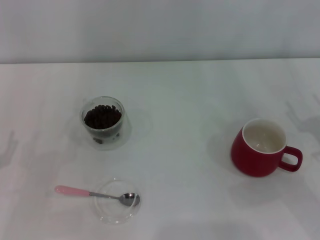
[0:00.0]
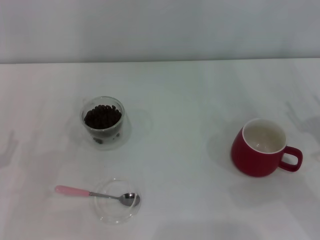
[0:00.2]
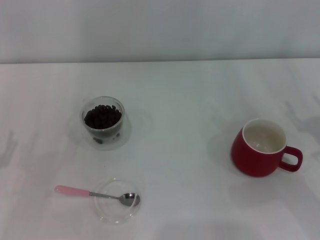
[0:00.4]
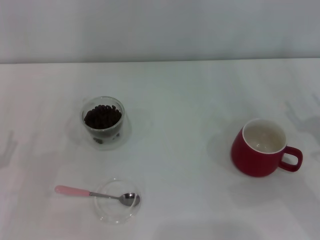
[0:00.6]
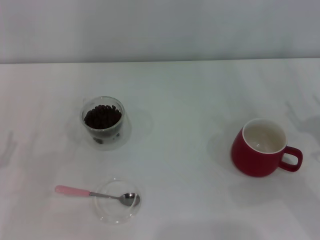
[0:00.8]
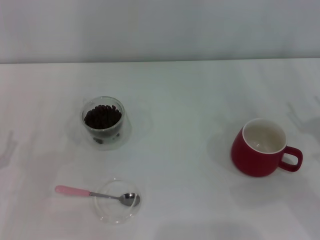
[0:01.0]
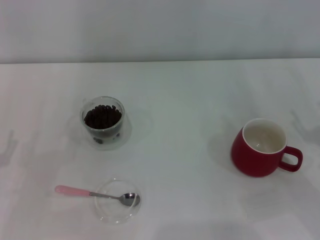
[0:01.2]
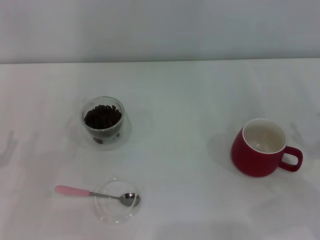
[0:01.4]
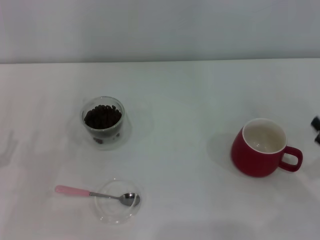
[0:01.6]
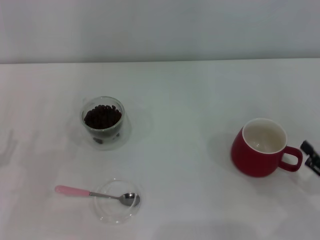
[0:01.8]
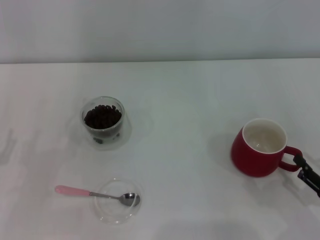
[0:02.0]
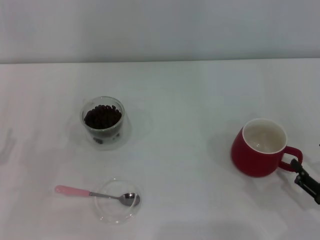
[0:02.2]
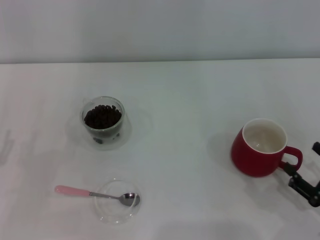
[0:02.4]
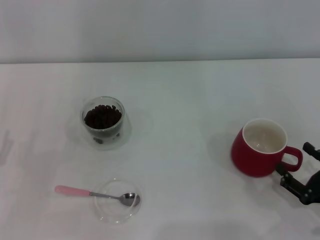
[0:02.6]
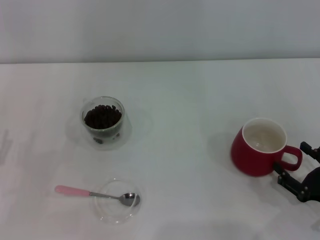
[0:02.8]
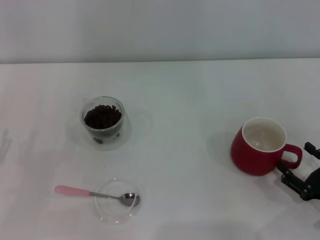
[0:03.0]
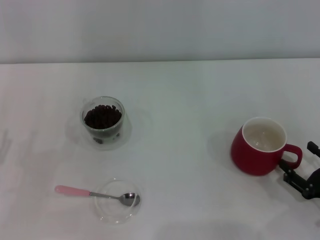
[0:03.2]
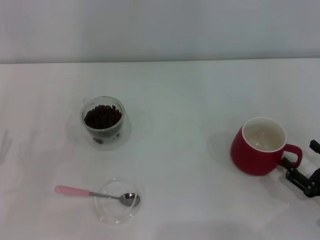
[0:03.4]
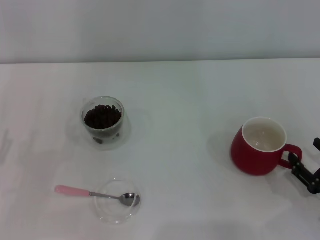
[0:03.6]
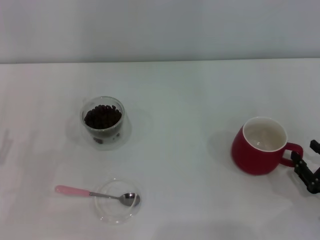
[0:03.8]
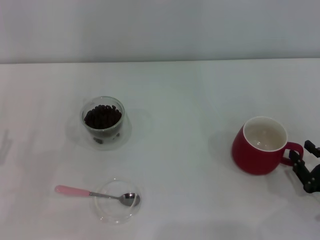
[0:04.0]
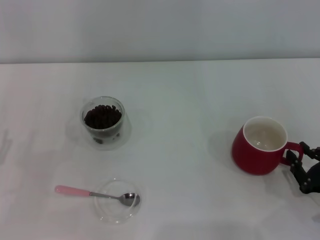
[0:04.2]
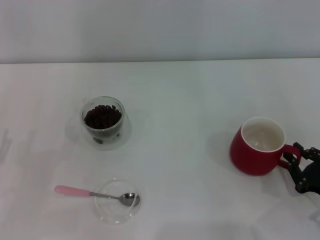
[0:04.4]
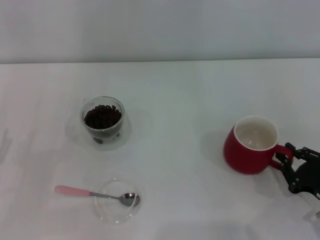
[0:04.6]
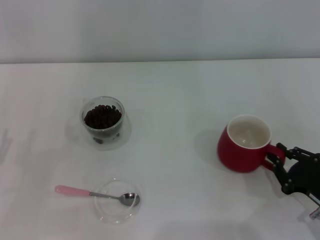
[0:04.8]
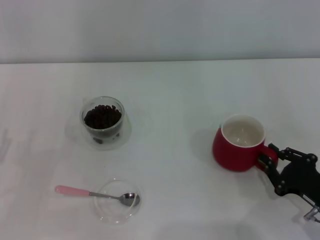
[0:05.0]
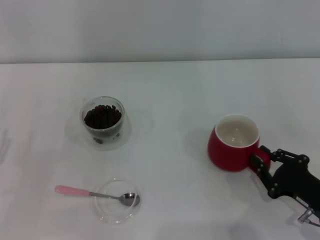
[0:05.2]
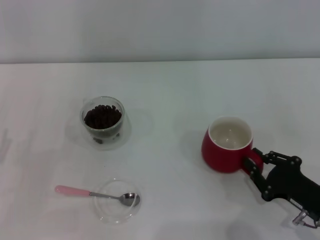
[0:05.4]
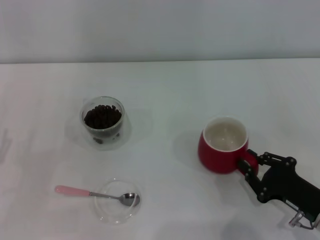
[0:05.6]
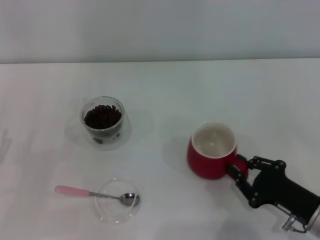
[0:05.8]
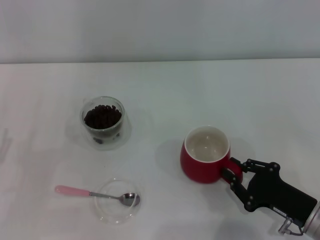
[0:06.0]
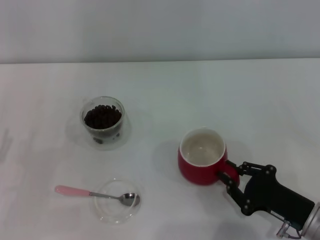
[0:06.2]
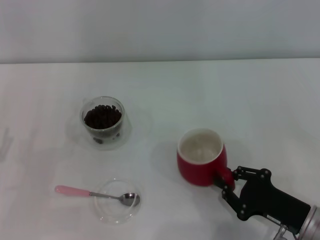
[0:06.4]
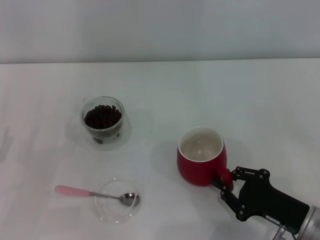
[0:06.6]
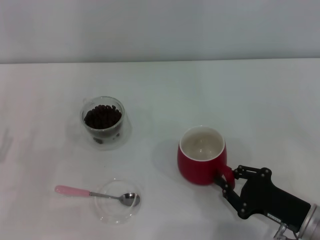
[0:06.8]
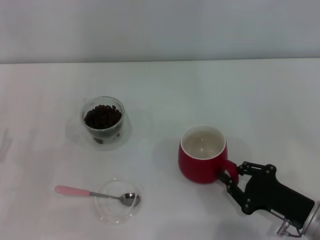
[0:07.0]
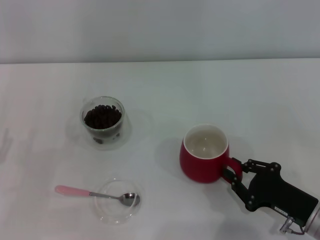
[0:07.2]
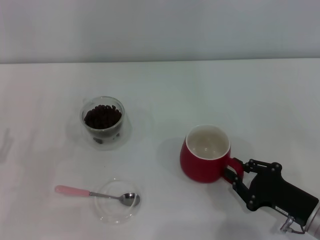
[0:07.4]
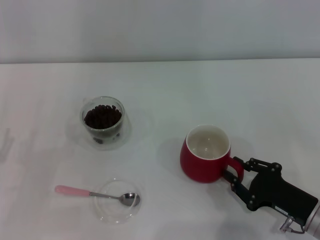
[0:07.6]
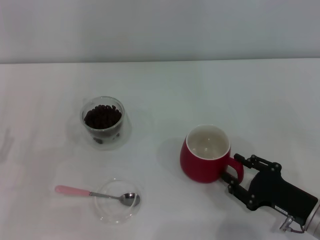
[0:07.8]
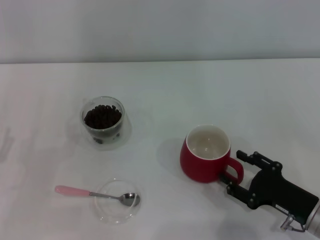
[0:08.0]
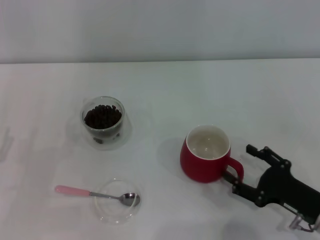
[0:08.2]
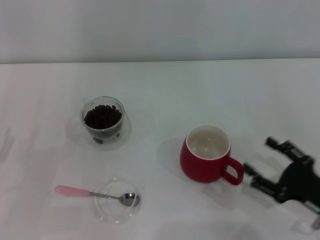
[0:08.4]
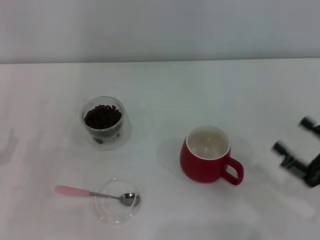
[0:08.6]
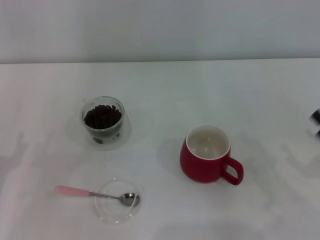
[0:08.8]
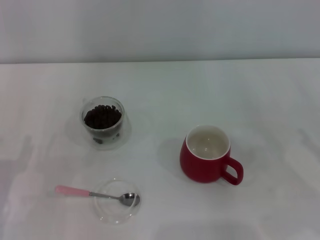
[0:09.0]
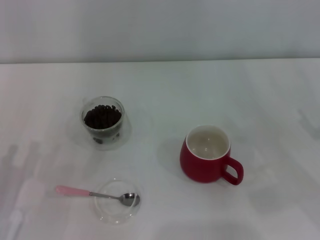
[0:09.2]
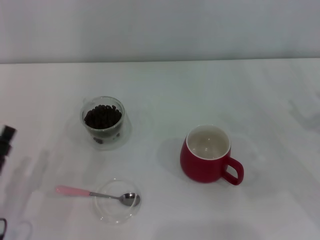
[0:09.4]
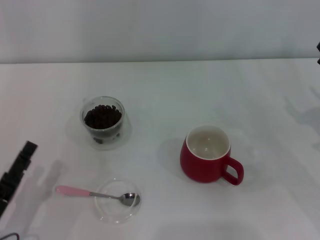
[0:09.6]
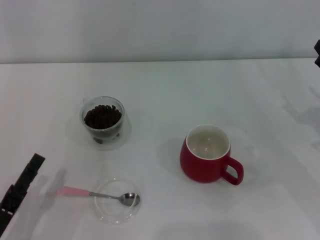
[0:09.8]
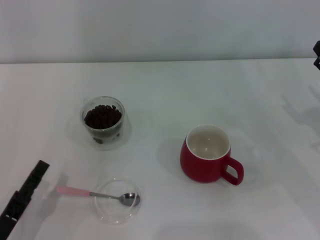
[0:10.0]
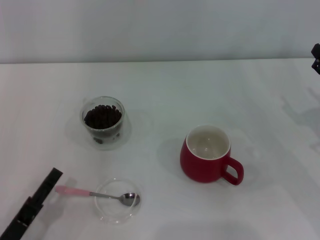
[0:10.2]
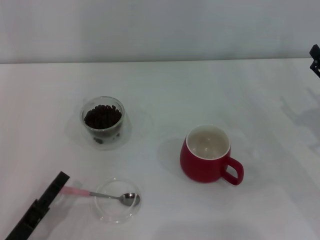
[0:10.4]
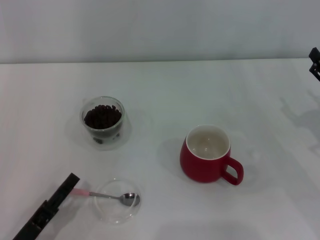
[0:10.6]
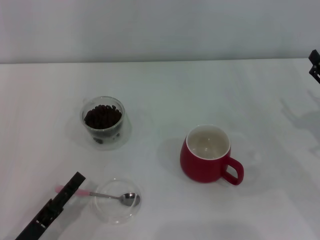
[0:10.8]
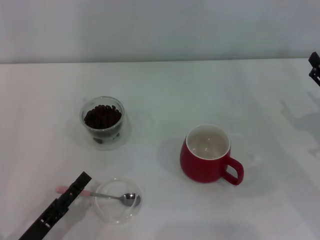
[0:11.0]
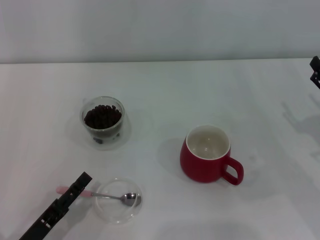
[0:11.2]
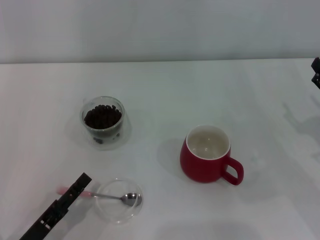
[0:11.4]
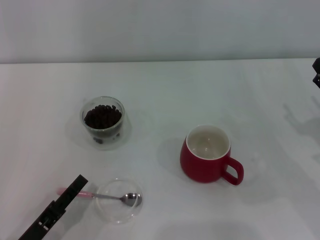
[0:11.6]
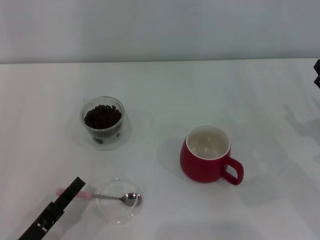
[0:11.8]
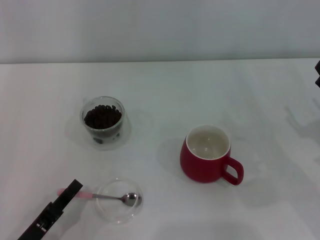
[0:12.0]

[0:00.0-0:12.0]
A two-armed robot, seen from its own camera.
Task of the whole recording: Use a pink spoon to take out the coffee beans from the glass and pour them into the red cup.
0:01.6 to 0:03.0: The right gripper ends up about 5 cm from where it was.
0:03.0 to 0:04.4: The right gripper closes up.
0:04.4 to 0:06.0: The right gripper moves to the left, roughly 5 cm.
0:06.0 to 0:07.6: Neither gripper changes place.
0:07.6 to 0:09.0: The right gripper goes approximately 15 cm to the right and upward, and opens its fingers.
0:09.0 to 0:10.4: The left gripper is displaced backward by some 5 cm.
0:10.4 to 0:12.0: The left gripper closes up.

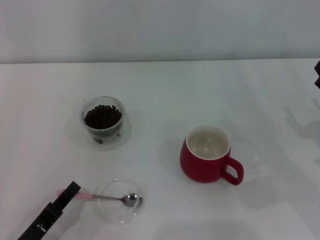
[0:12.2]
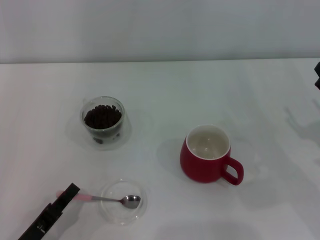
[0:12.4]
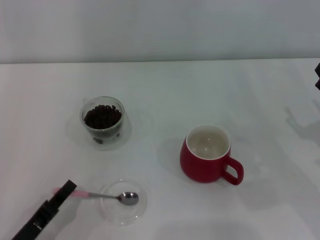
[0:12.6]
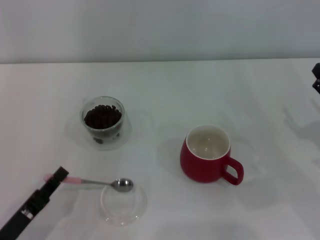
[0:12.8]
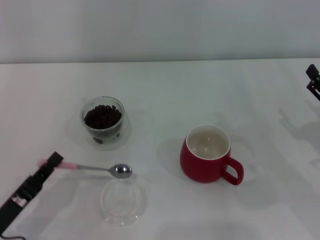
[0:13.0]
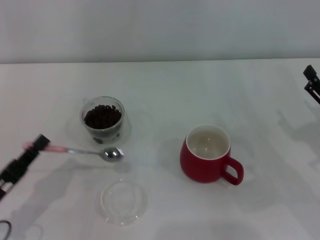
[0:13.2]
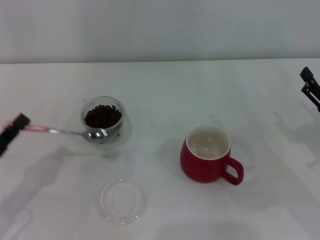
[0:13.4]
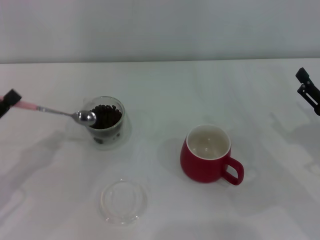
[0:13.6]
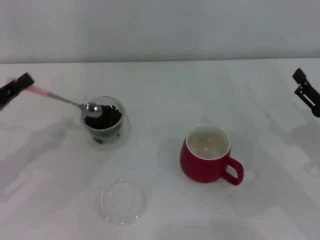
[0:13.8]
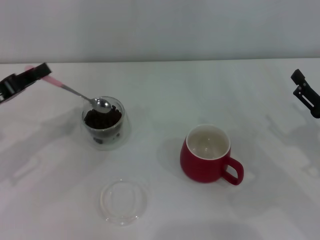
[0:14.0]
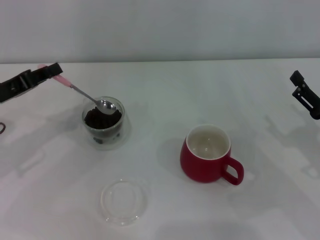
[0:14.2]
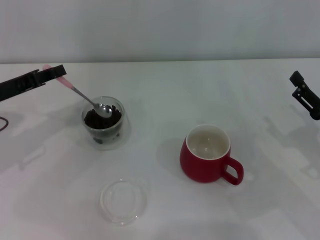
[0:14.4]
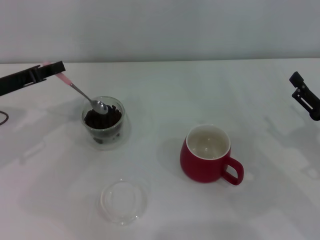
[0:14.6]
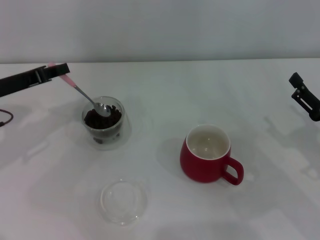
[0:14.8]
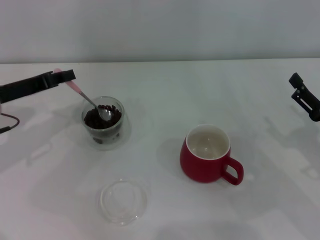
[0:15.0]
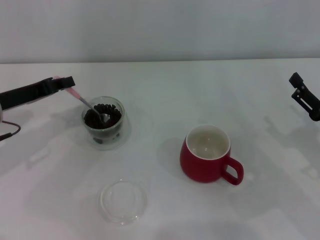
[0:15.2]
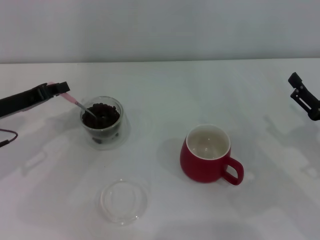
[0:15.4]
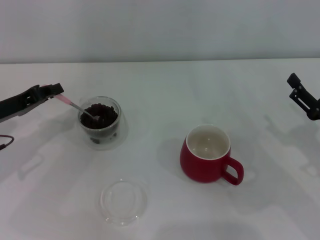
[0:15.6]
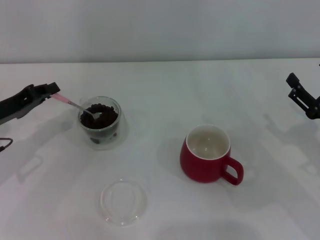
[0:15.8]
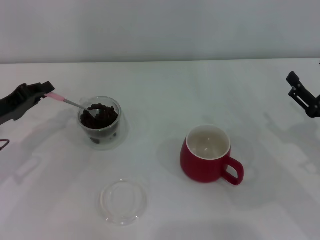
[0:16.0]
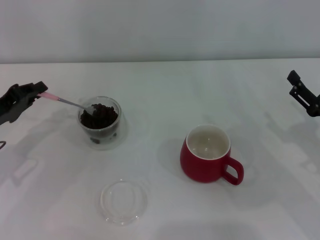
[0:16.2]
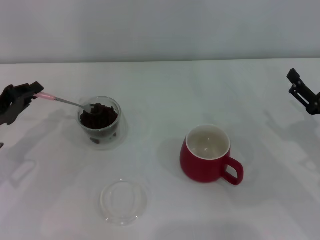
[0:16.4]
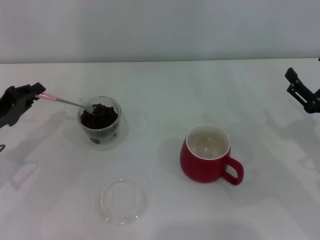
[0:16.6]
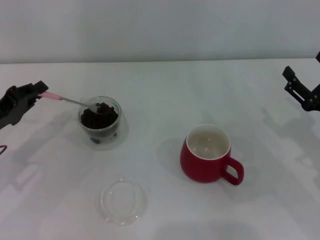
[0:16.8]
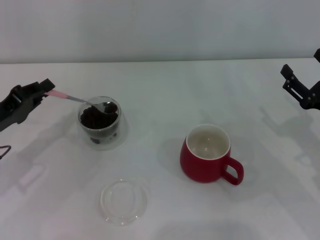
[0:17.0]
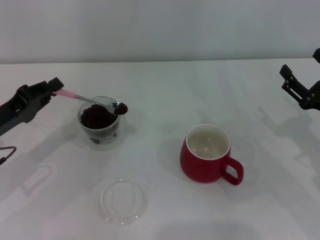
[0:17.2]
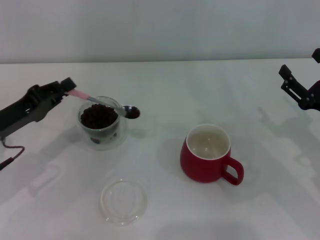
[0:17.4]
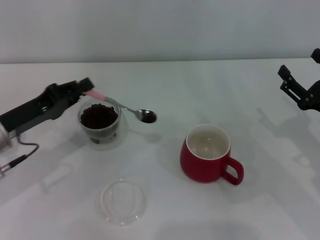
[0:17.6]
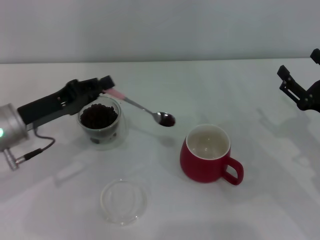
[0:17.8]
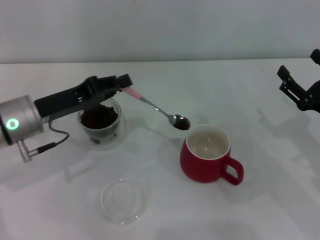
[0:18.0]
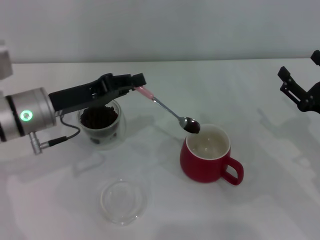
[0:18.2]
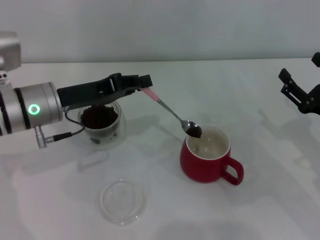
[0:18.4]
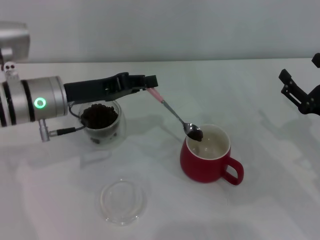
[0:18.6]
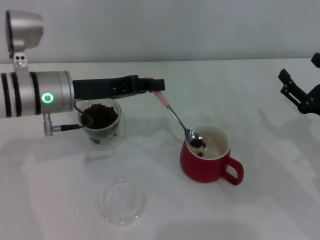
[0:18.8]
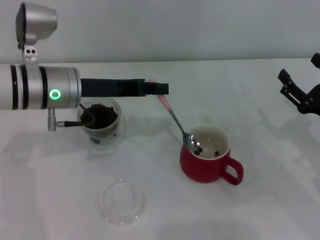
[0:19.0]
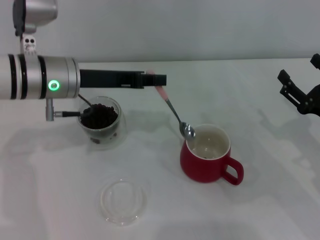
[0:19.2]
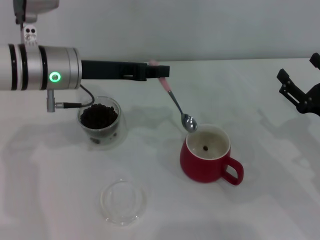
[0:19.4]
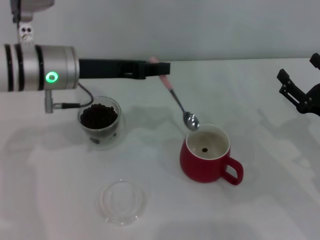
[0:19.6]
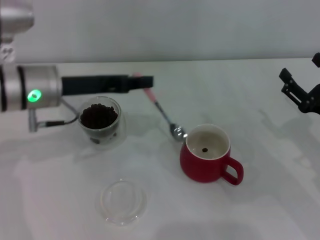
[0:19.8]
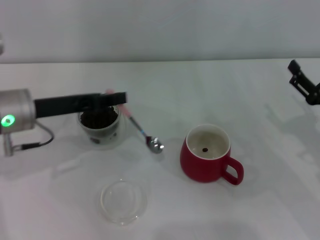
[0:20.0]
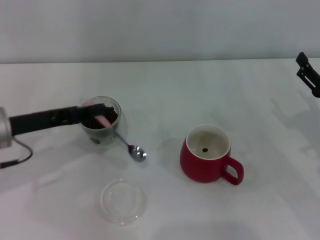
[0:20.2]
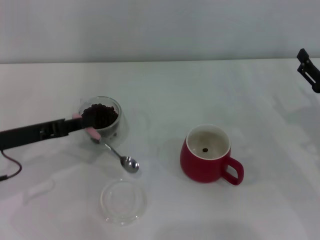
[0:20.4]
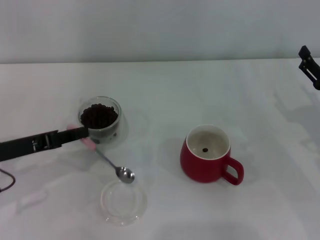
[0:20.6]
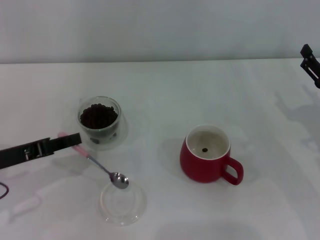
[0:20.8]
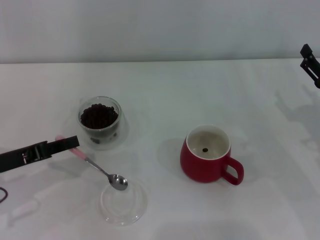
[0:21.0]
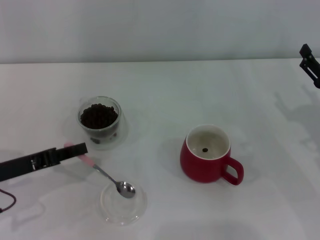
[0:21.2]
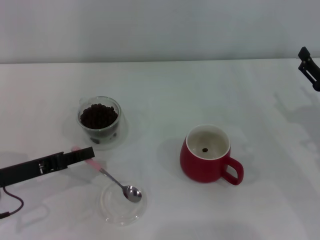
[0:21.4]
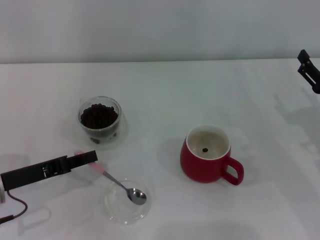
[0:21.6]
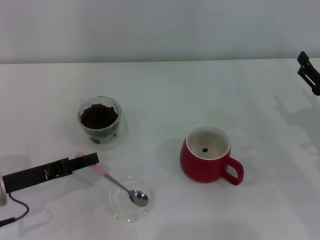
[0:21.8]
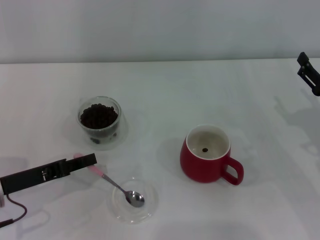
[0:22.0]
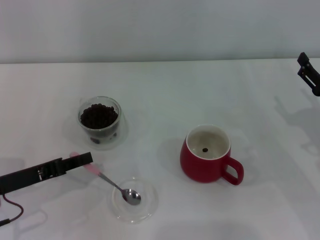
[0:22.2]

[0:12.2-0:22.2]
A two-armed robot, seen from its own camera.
Task of the whole recording: Use a pink spoon to take out the coffee beans from the glass and pour them into the red cup.
0:12.2 to 0:13.6: The left gripper heads upward, forward and to the left, covering approximately 15 cm.
0:13.6 to 0:15.0: The left gripper moves forward, about 15 cm.
0:15.0 to 0:16.4: The left gripper ends up approximately 5 cm from where it was.
0:16.4 to 0:18.0: The left gripper is displaced to the right by roughly 10 cm.
0:18.0 to 0:19.4: The left gripper is displaced upward, to the right and forward by about 10 cm.
0:19.4 to 0:20.8: The left gripper moves to the left, backward and downward, some 20 cm.
0:20.8 to 0:22.2: The grippers move only a little.
